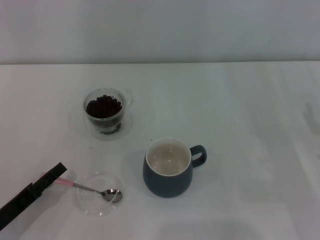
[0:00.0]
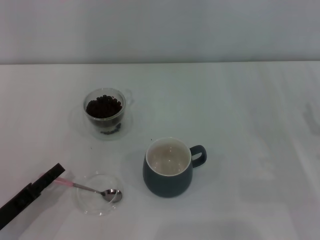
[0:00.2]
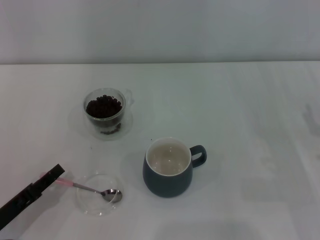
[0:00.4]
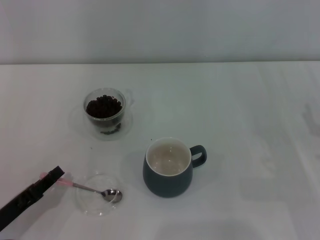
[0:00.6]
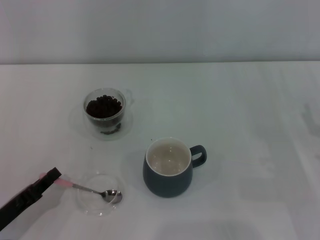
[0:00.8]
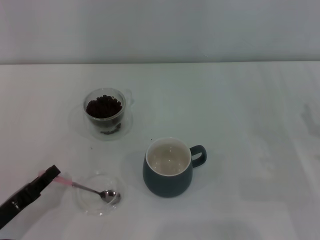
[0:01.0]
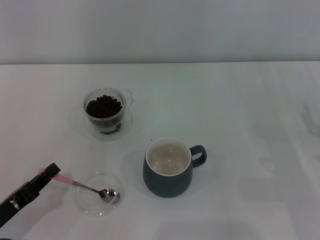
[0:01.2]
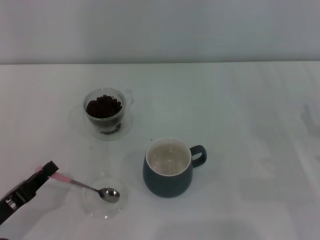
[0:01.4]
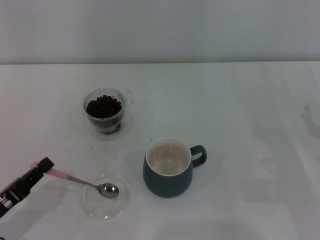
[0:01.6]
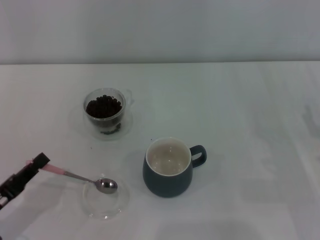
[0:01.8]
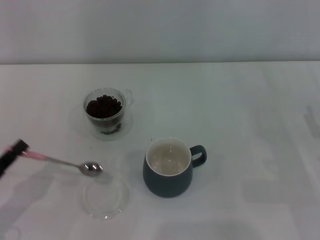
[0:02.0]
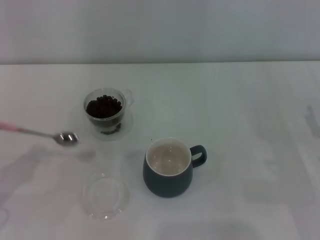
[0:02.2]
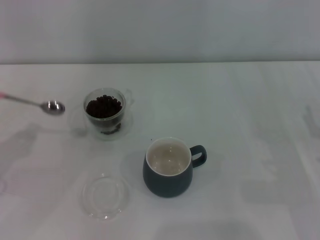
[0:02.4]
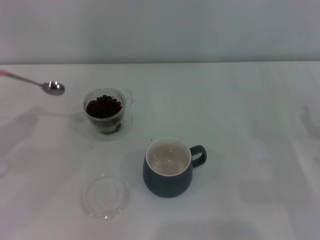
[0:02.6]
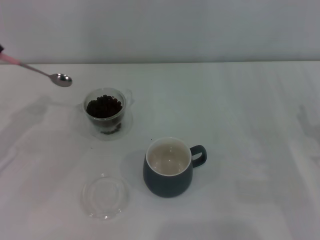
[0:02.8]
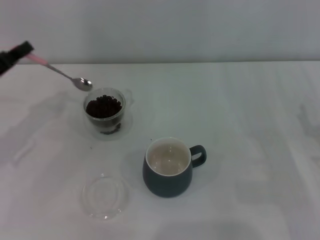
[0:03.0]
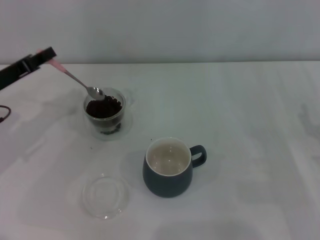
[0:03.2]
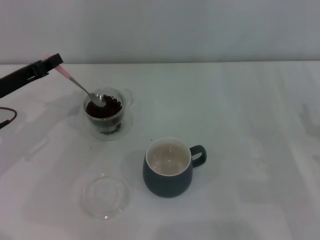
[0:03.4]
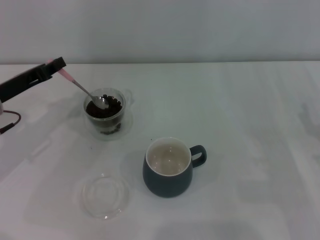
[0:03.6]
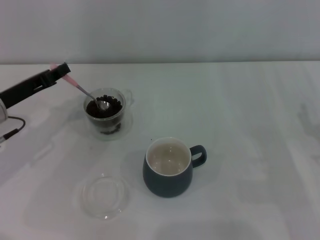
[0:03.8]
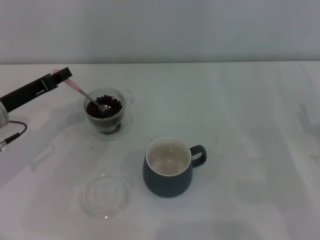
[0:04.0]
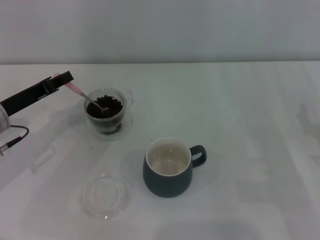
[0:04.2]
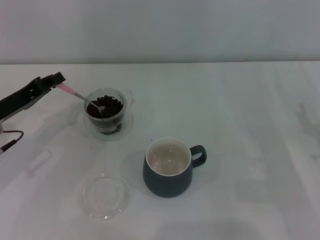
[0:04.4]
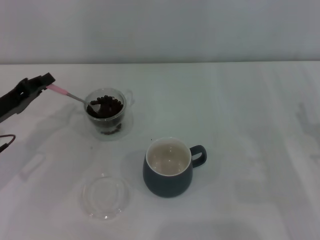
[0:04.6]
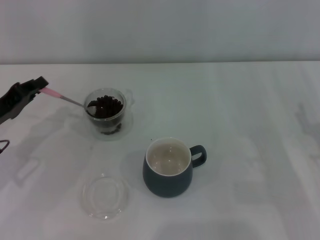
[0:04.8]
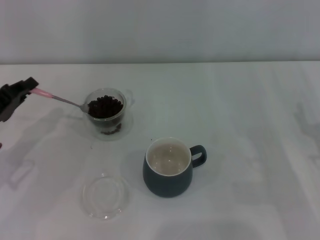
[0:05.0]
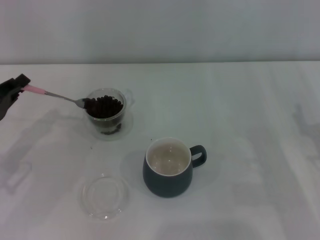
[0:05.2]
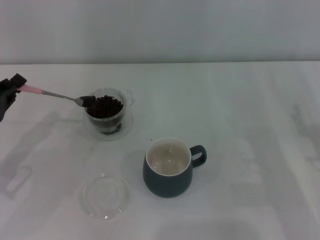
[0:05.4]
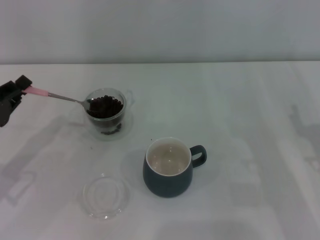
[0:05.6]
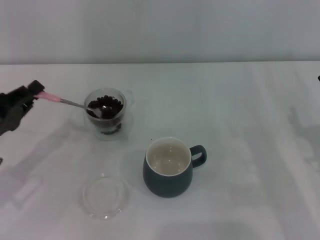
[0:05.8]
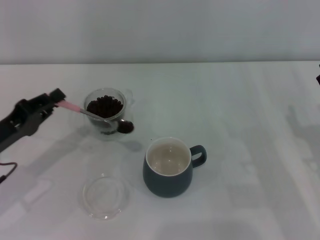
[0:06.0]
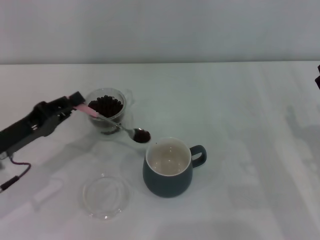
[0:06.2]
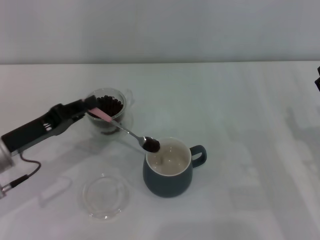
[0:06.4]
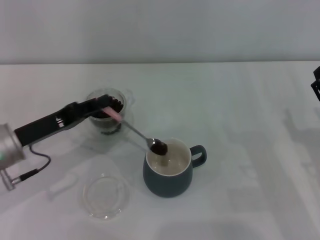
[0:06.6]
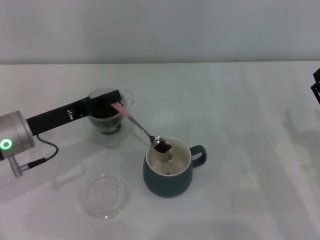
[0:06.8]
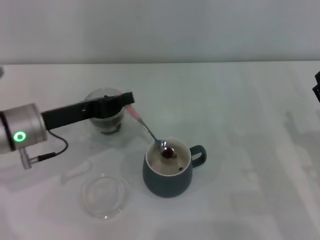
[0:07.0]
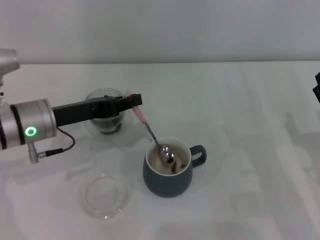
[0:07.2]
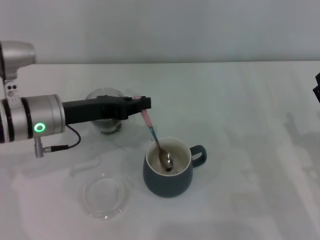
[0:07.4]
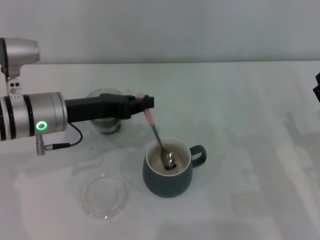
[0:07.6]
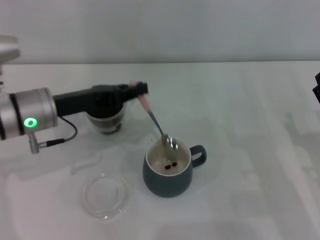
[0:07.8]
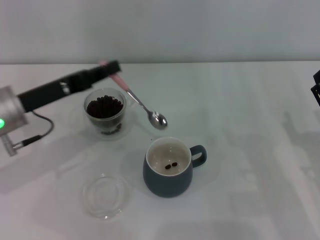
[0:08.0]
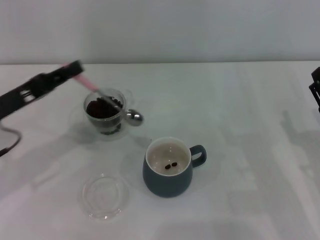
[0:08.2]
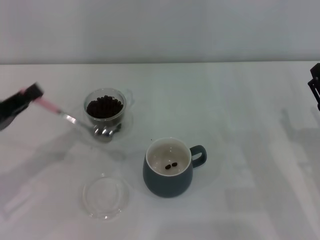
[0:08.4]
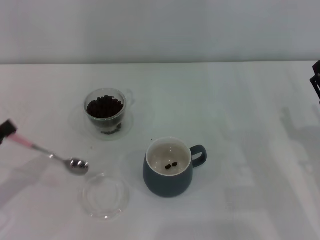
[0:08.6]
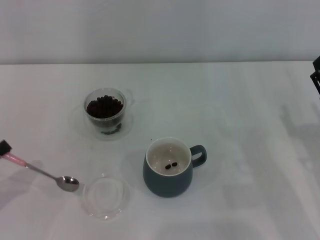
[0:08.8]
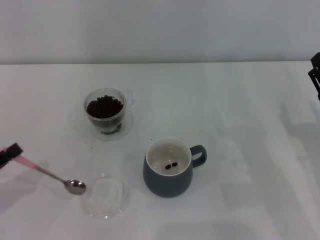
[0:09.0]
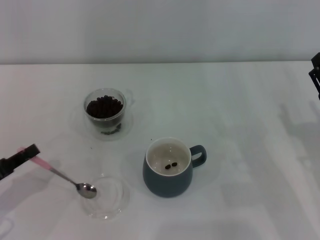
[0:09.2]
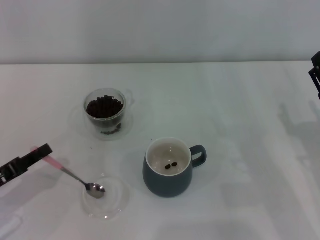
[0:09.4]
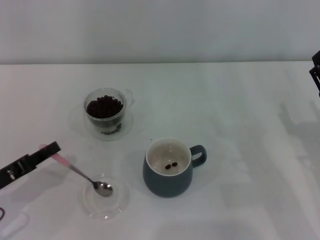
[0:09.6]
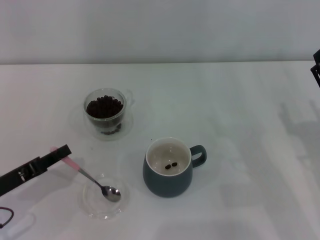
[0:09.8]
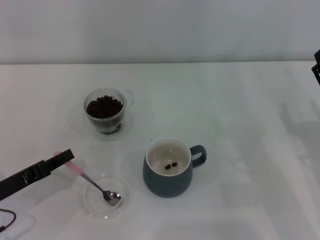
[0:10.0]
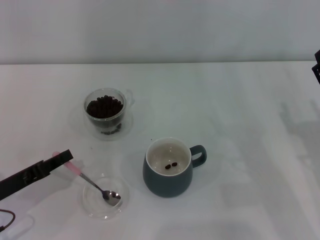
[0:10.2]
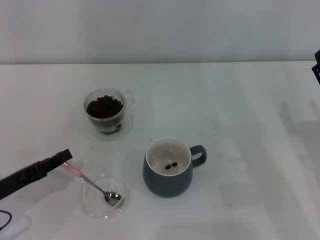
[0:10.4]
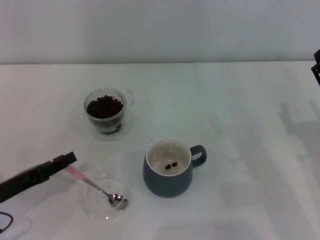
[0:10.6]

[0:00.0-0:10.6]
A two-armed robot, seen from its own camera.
Task of the whole recording: Use a pink spoon to take out the coffee beans from the glass and pour them into the gray cup.
0:00.0 to 0:01.6: The left gripper closes up.
0:01.6 to 0:03.0: The left gripper heads forward and upward, covering approximately 20 cm.
0:03.0 to 0:04.6: The grippers stay close to where they were, moving slightly.
0:04.6 to 0:06.0: The left gripper is displaced backward by some 5 cm.
0:06.0 to 0:07.6: The left gripper shifts roughly 15 cm to the right and forward.
0:07.6 to 0:09.0: The left gripper shifts some 25 cm to the left, backward and downward.
0:09.0 to 0:10.6: The left gripper changes place by some 5 cm.

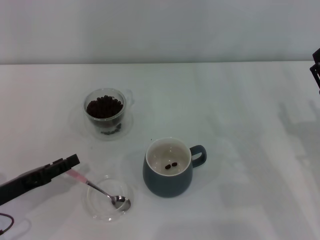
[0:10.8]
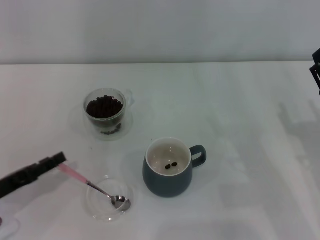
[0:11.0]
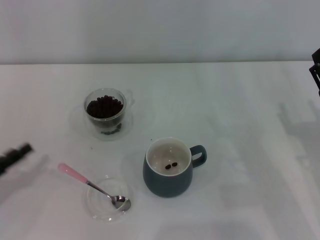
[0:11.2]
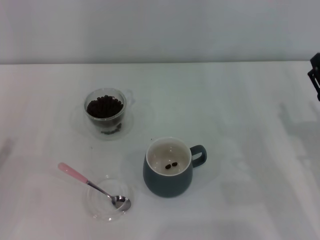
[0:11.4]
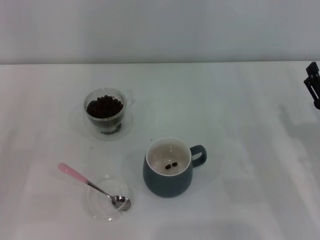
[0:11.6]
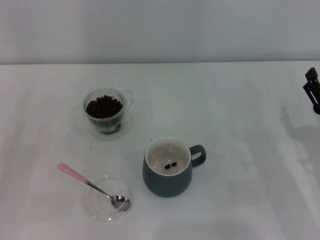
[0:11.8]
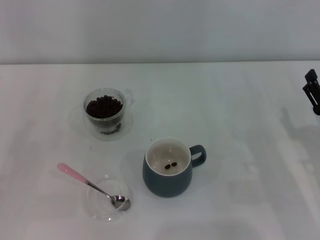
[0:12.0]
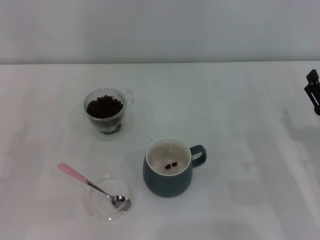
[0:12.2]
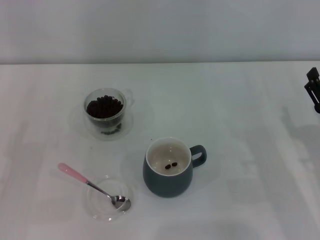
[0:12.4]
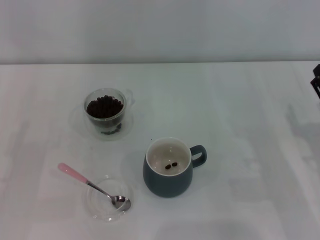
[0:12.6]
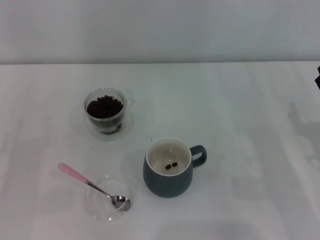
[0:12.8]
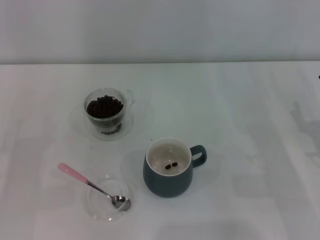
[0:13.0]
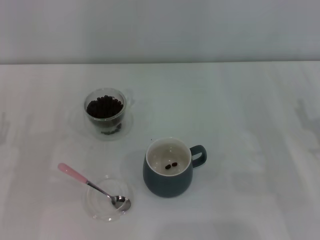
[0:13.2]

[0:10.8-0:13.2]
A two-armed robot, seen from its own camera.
Task of the whole recording: Use a pink spoon to take out the coffee beans from the glass and pour them into the gray cup.
0:10.8 to 0:12.0: The left gripper heads to the left, covering some 5 cm.
